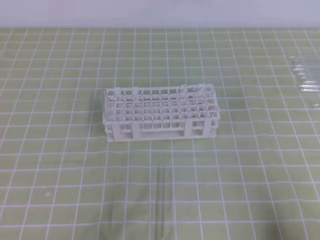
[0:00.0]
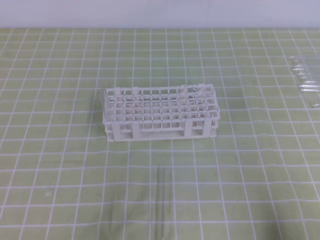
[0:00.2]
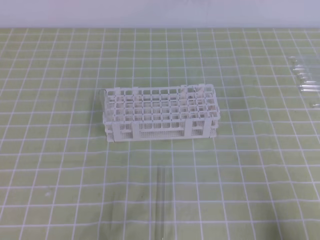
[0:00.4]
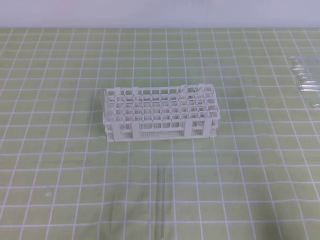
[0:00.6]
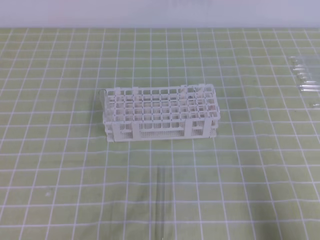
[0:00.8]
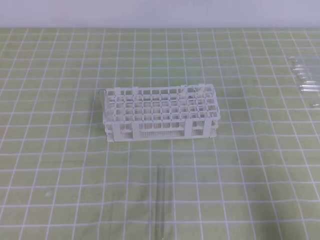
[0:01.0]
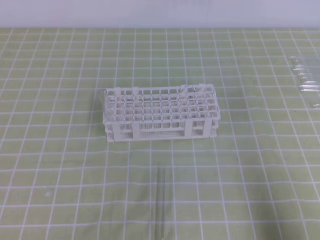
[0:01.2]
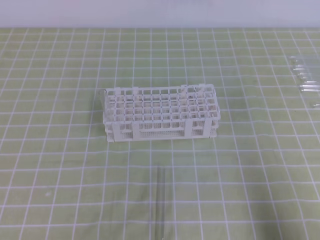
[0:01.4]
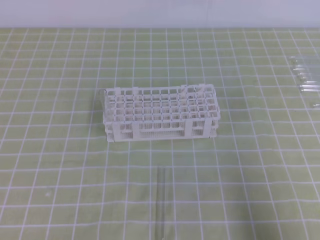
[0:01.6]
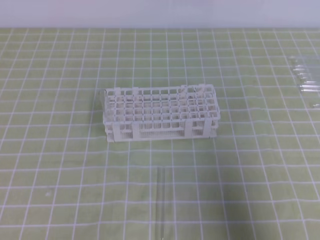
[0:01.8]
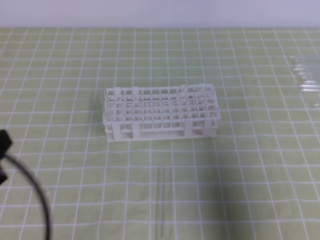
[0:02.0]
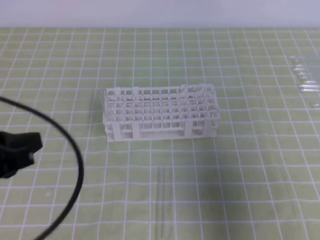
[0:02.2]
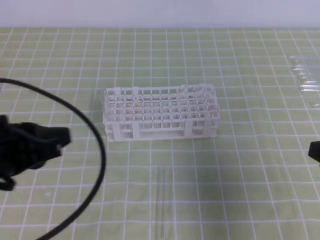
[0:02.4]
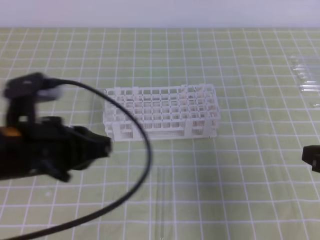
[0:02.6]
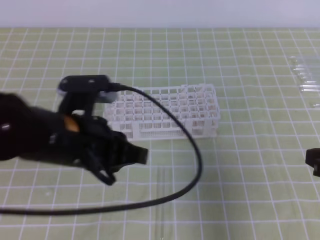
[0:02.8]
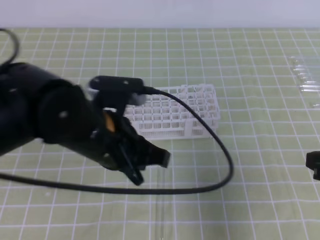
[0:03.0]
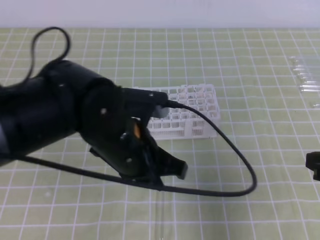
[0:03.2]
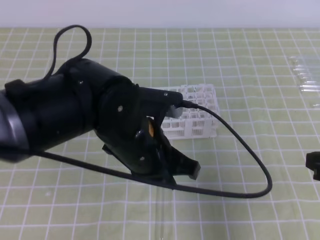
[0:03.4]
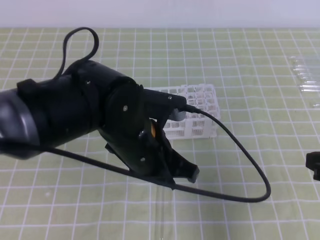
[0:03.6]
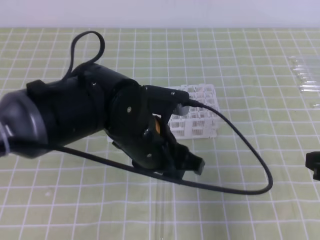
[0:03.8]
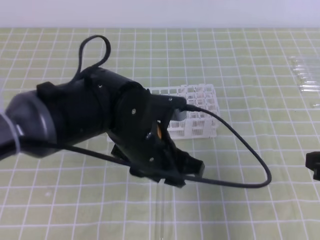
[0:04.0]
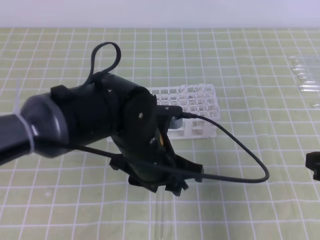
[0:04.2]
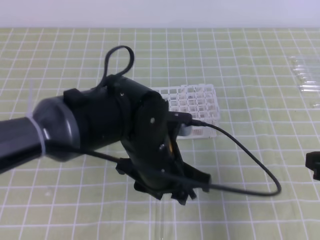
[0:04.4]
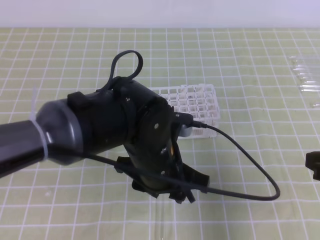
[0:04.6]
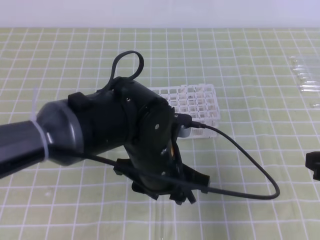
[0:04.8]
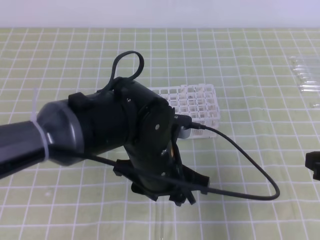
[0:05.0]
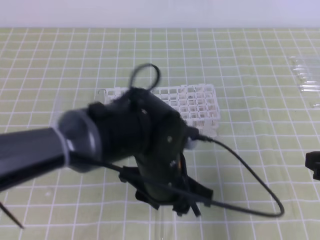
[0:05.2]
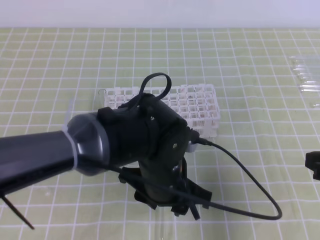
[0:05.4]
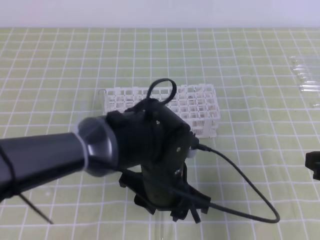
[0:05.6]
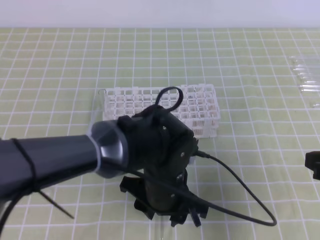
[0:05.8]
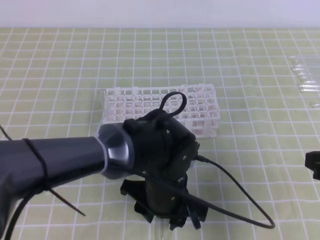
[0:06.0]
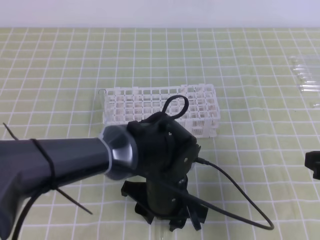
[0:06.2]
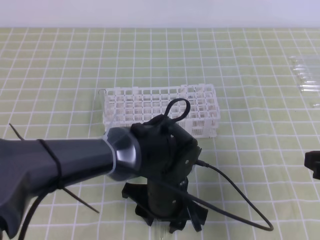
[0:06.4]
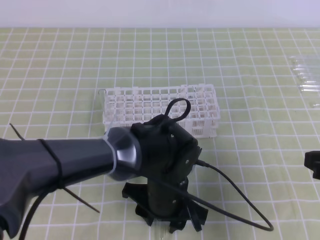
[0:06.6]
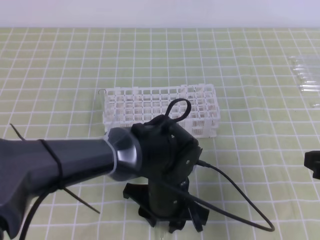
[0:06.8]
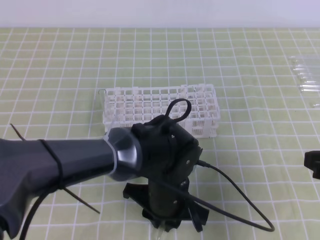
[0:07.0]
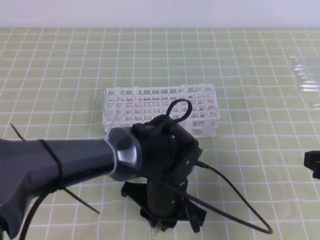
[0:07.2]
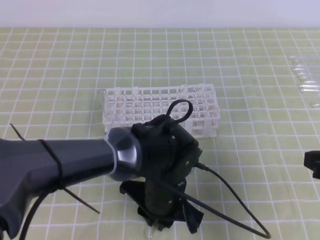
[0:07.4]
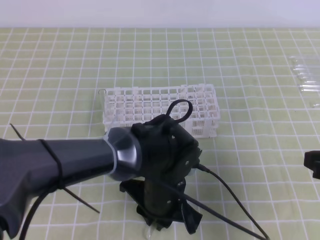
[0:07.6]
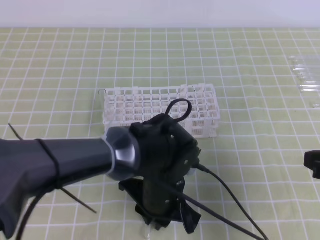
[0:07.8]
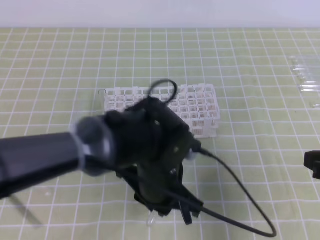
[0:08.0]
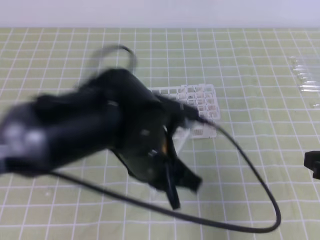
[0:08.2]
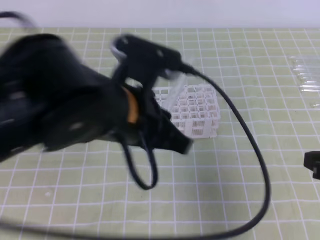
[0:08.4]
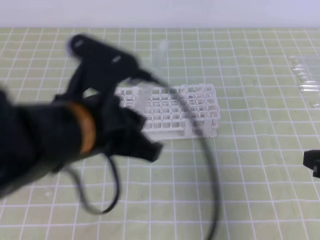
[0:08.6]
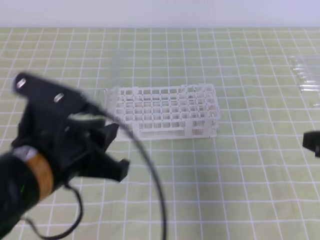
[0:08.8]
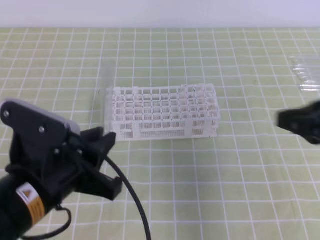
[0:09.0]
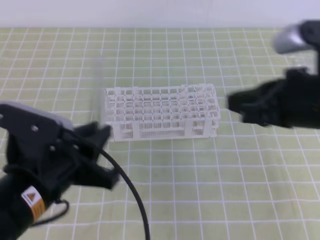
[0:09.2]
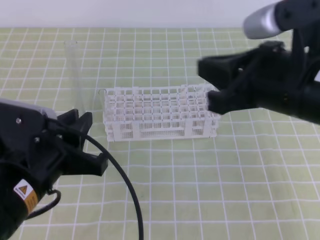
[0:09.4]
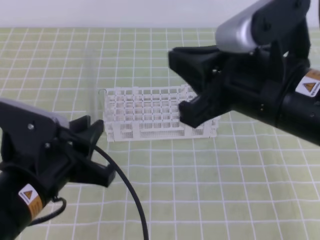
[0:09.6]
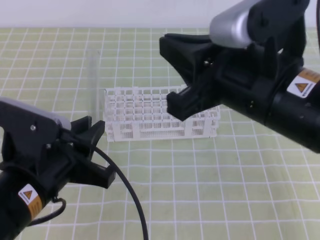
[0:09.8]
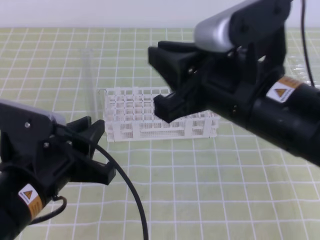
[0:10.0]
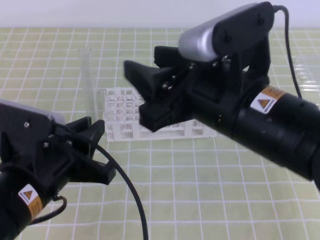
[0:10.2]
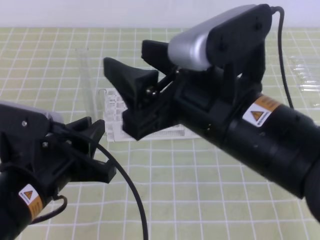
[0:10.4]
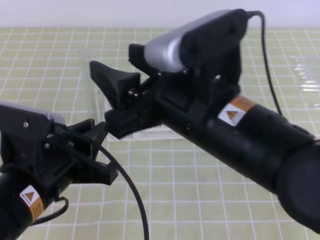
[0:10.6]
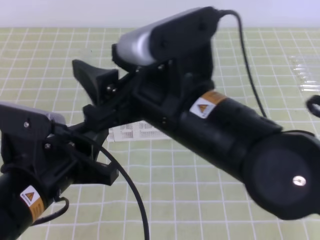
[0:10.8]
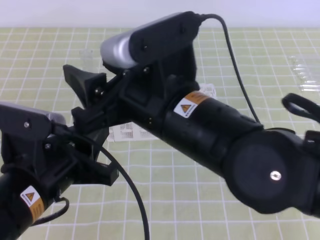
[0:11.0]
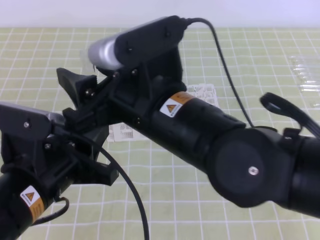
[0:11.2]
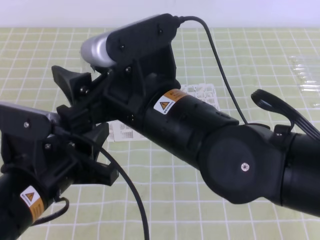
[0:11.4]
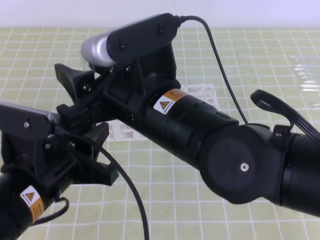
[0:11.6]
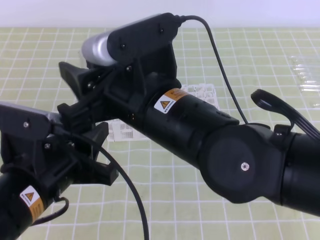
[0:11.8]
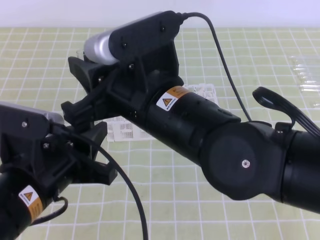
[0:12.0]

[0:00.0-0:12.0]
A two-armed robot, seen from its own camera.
0:00.0 to 0:01.6: The right gripper is displaced upward by some 5 cm.
0:01.6 to 0:03.0: The left gripper goes approximately 25 cm to the right and forward; the right gripper moves forward, roughly 10 cm.
0:03.0 to 0:04.4: The left gripper heads to the right, covering about 5 cm, and opens up.
0:04.4 to 0:06.0: The left gripper heads downward, covering about 5 cm.
0:06.0 to 0:07.6: The left gripper closes its fingers.
0:07.6 to 0:09.0: The left gripper heads to the left, upward and backward, covering about 20 cm, while the right gripper moves some 5 cm.
0:09.0 to 0:10.4: The right gripper is displaced to the left by some 15 cm, and opens.
0:10.4 to 0:12.0: The right gripper heads to the left, covering roughly 5 cm, and closes its fingers.

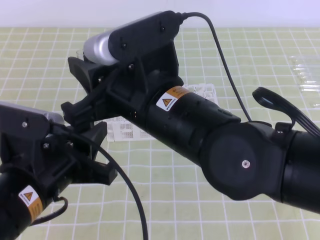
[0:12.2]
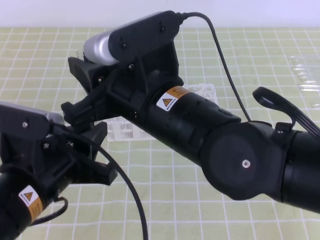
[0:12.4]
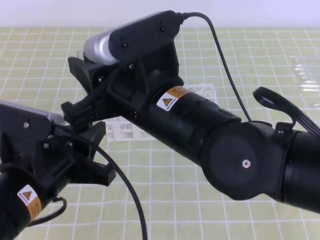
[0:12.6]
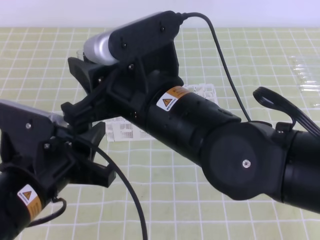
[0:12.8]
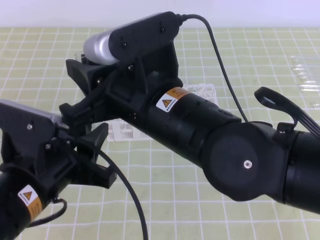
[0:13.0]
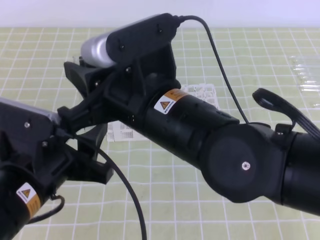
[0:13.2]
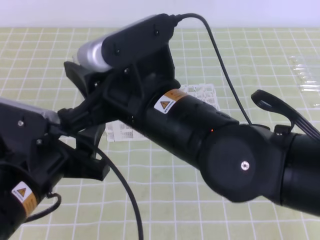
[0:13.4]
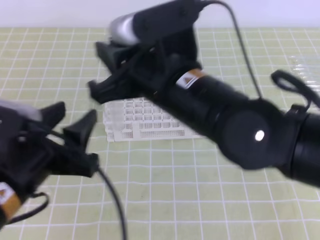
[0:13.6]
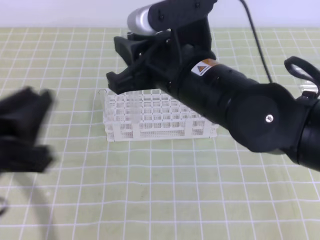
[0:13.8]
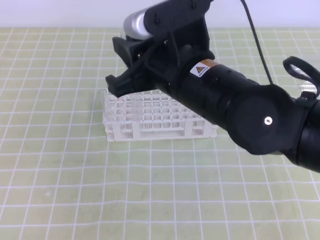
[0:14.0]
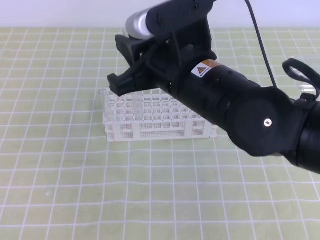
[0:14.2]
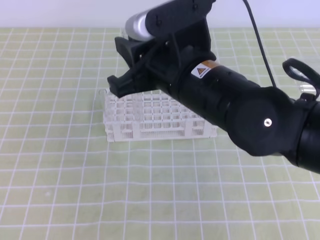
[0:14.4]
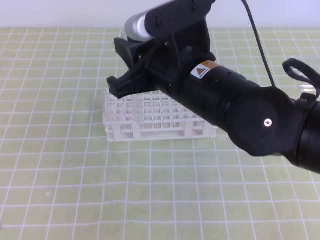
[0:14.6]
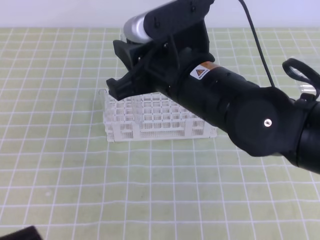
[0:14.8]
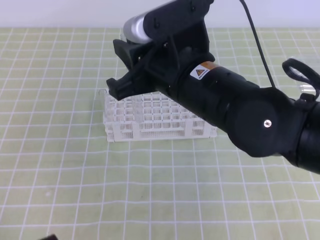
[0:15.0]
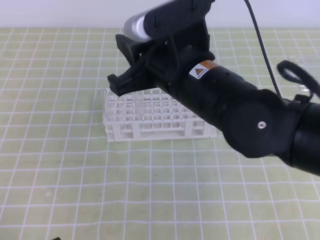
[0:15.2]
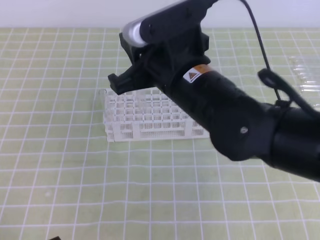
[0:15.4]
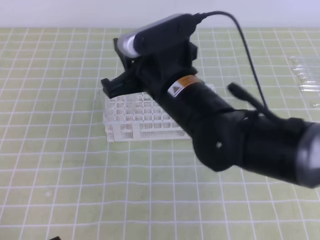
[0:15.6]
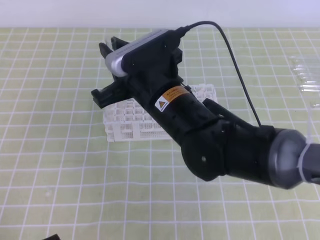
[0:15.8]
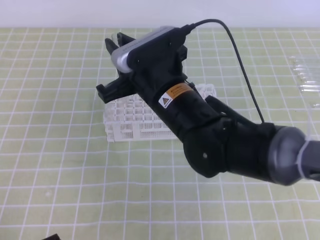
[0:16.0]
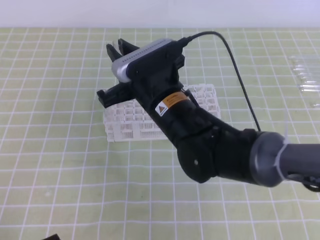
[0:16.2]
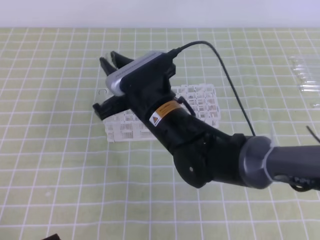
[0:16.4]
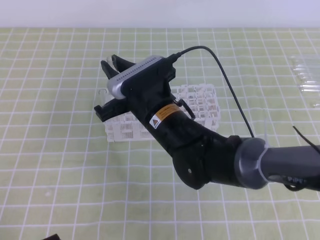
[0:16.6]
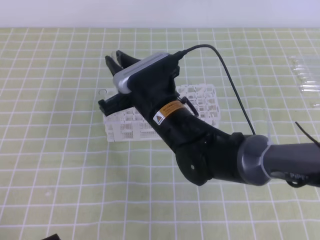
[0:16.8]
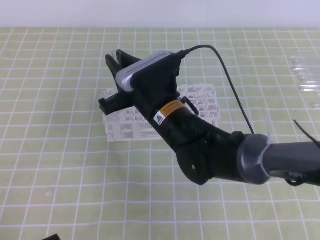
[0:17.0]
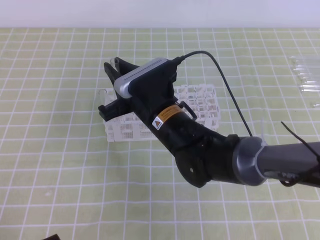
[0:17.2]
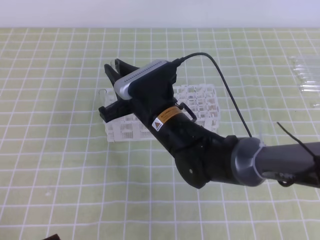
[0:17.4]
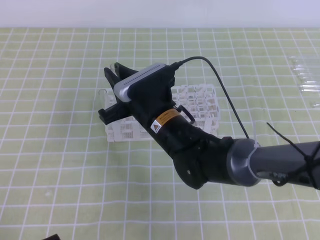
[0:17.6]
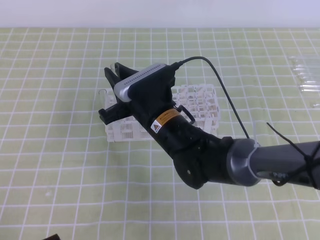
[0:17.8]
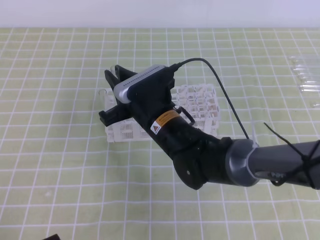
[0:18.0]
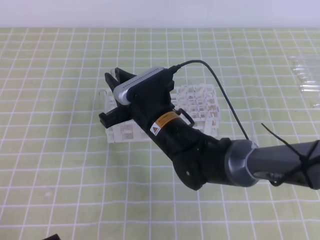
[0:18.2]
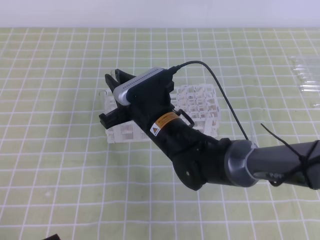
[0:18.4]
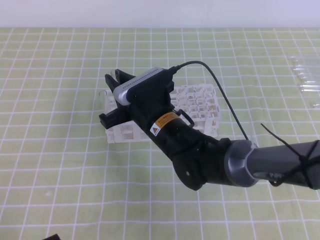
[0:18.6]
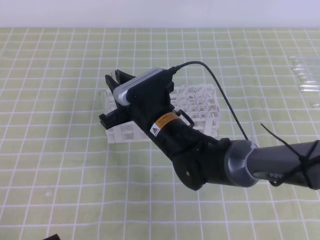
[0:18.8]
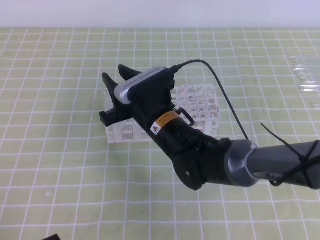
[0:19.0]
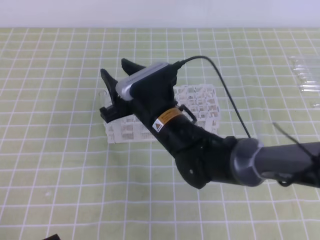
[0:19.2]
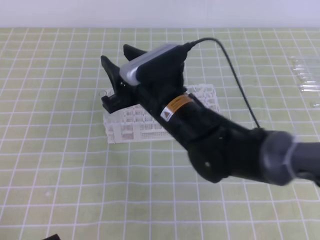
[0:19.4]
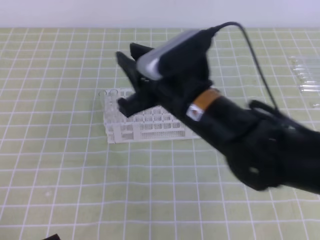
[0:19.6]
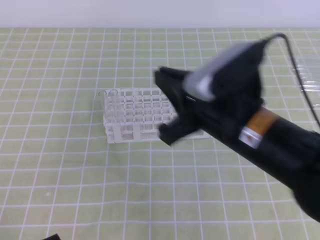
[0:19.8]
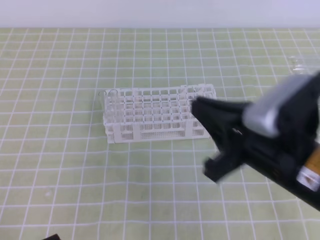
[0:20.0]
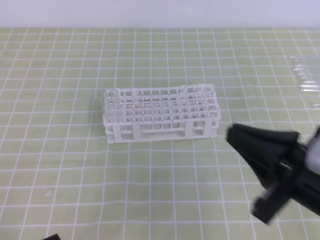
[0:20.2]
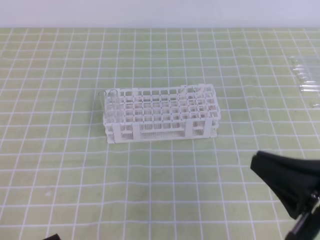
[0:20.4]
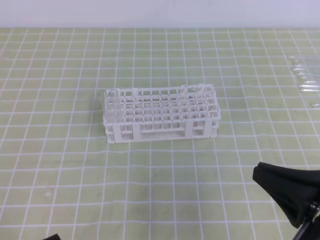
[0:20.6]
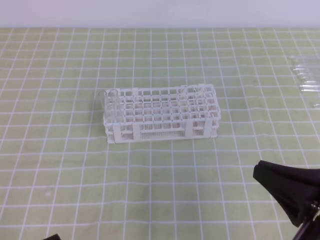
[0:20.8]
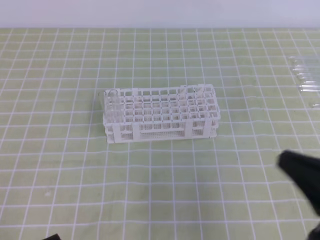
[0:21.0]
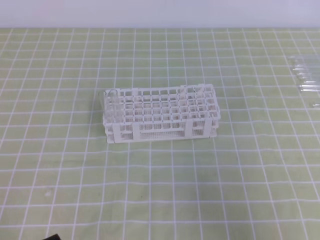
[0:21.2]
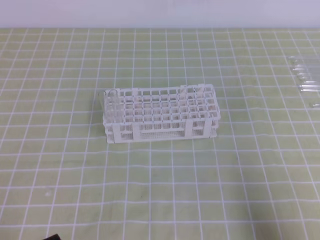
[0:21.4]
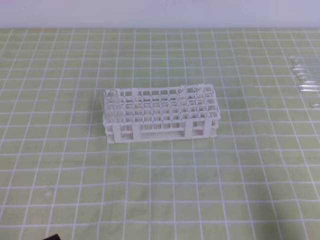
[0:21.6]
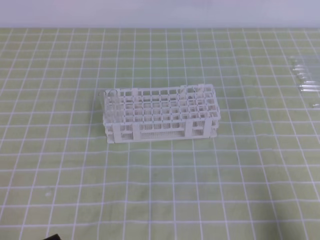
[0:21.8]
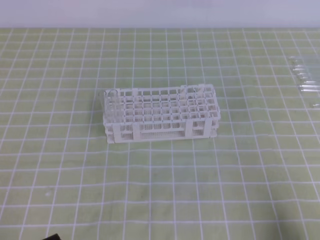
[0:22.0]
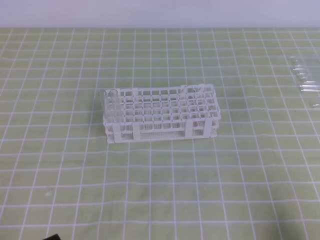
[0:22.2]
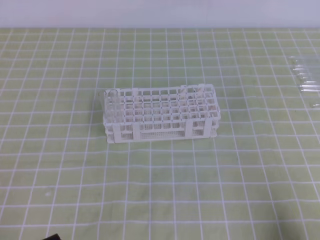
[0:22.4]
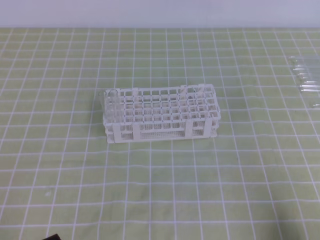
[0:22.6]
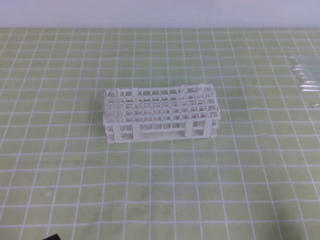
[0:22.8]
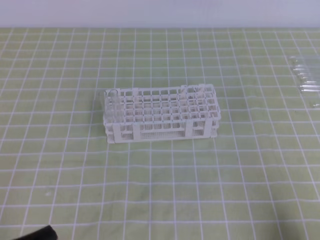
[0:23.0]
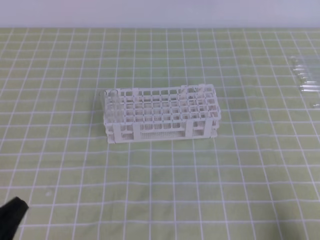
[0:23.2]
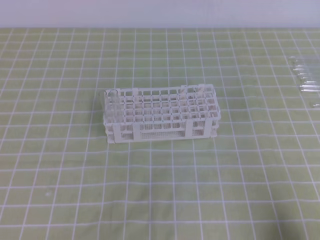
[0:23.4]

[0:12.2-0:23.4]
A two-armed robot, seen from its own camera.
0:12.2 to 0:13.8: The left gripper shifts by about 5 cm, and opens its fingers.
0:13.8 to 0:15.4: The left gripper shifts roughly 15 cm downward and backward, and closes its fingers.
0:15.4 to 0:17.0: The right gripper travels downward by about 10 cm.
0:17.0 to 0:18.6: There are only small adjustments of the grippers.
0:18.6 to 0:20.2: The right gripper heads to the right, backward and upward, covering some 25 cm, and opens, then closes again.
0:20.2 to 0:21.8: The right gripper is displaced to the right, downward and backward by some 20 cm.
